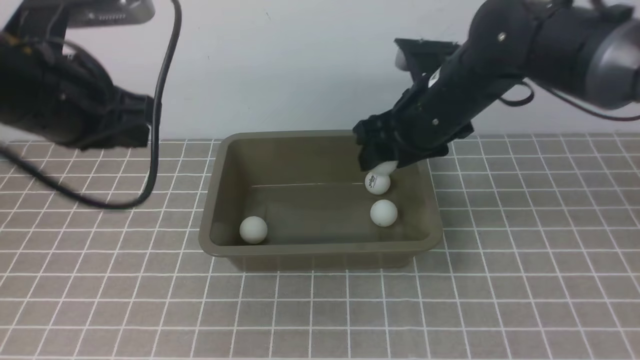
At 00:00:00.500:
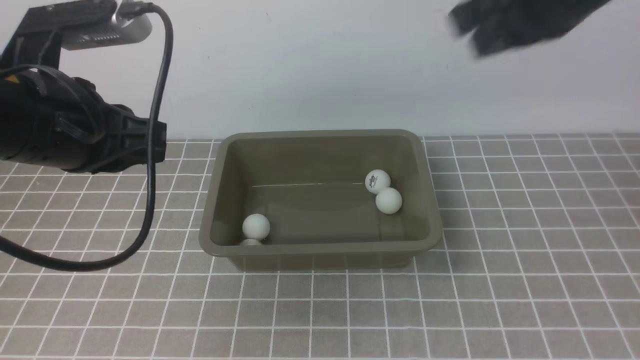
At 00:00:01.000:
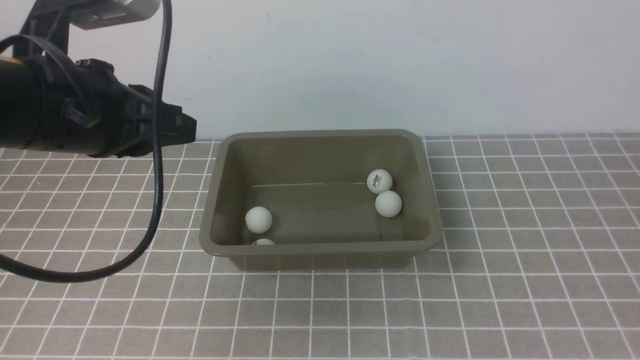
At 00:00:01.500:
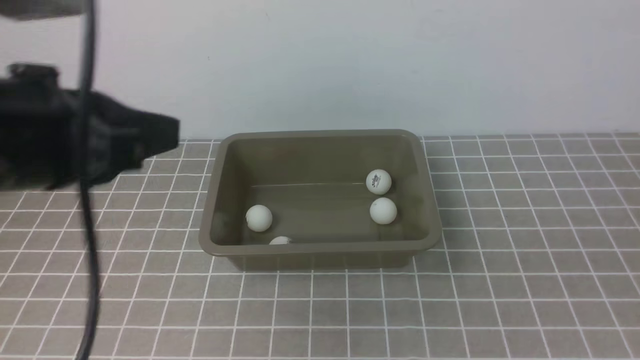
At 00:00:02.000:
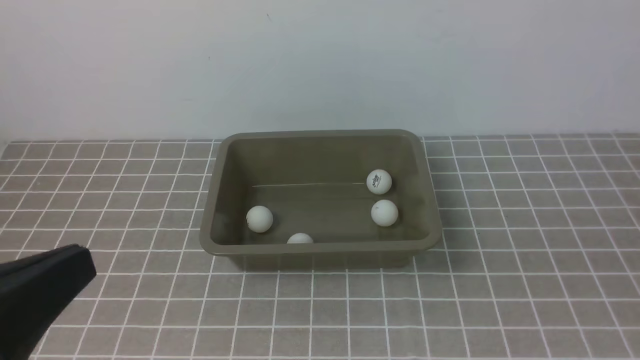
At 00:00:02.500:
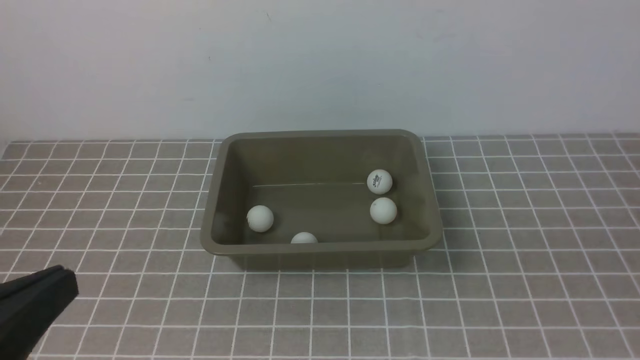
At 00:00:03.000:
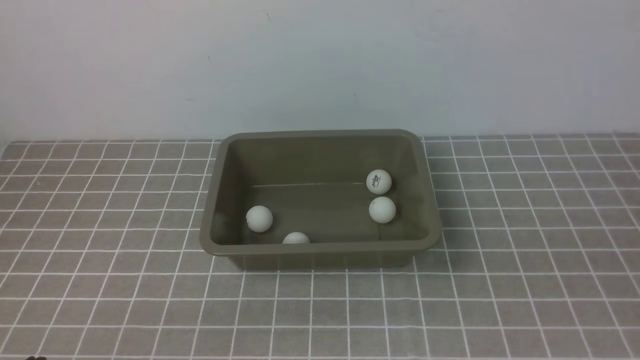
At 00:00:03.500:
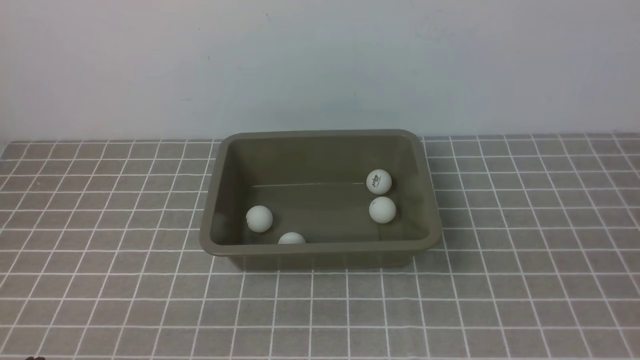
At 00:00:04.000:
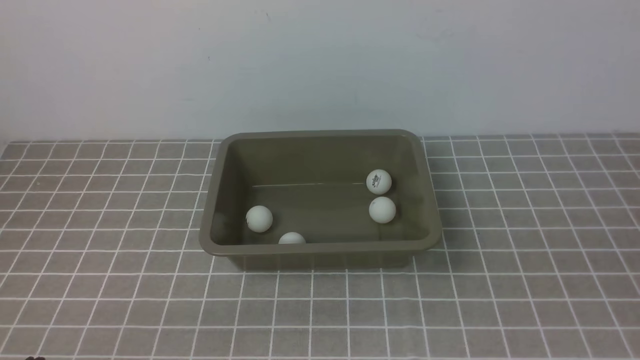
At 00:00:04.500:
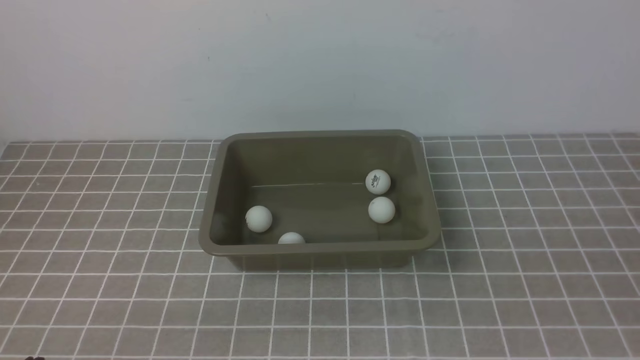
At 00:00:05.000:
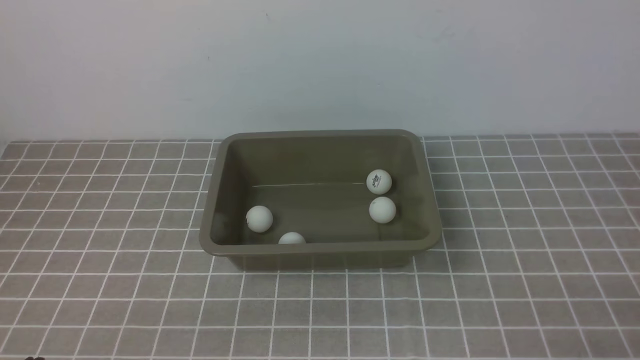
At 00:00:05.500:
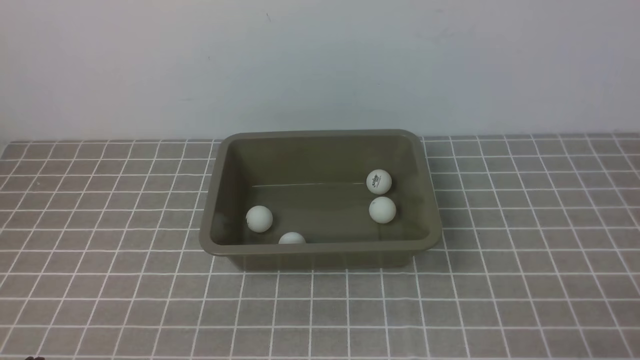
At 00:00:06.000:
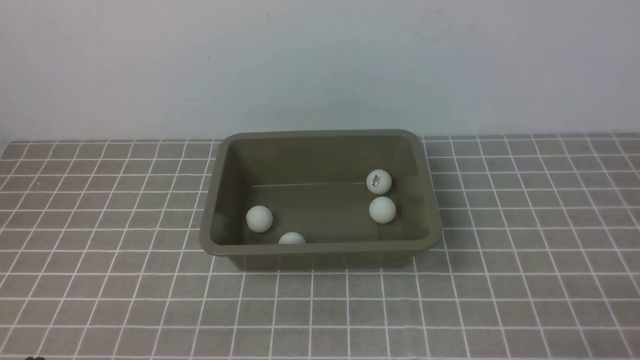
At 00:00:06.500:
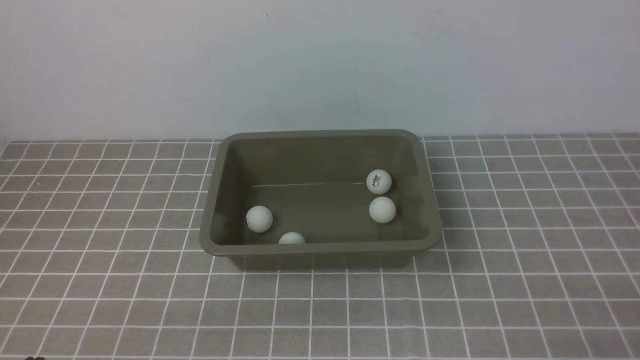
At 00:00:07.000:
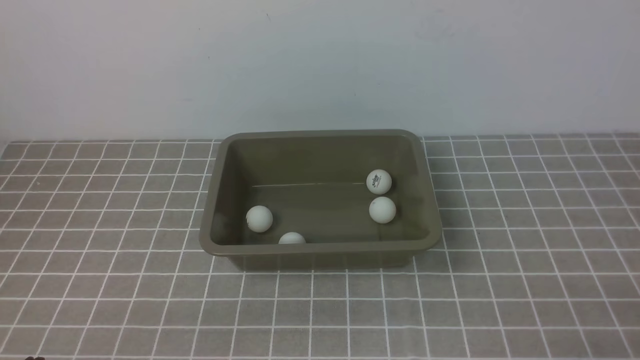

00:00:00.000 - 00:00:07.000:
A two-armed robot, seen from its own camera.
00:00:00.000 - 00:00:02.000: The right gripper travels backward and to the right by about 40 cm, and closes; the left gripper goes some 20 cm backward.
00:00:02.000 - 00:00:03.500: The left gripper moves downward, approximately 15 cm.
00:00:05.000 - 00:00:07.000: Both grippers stay about where they are.
